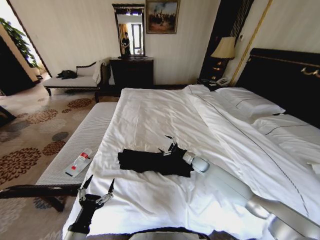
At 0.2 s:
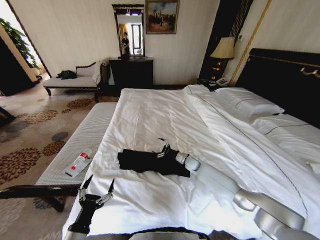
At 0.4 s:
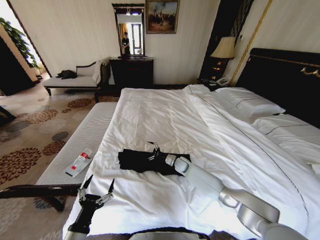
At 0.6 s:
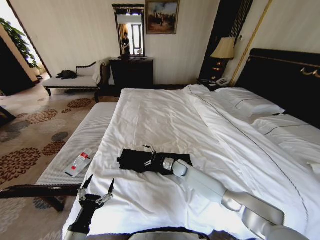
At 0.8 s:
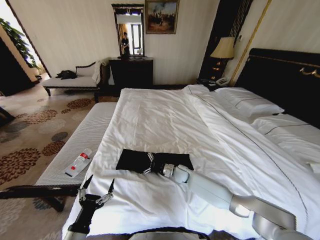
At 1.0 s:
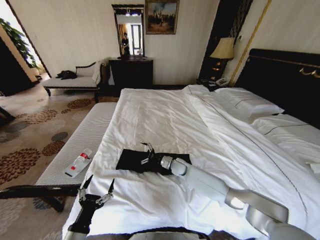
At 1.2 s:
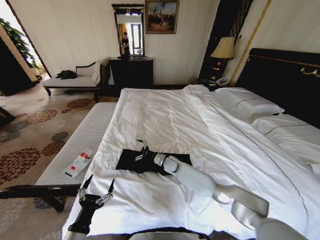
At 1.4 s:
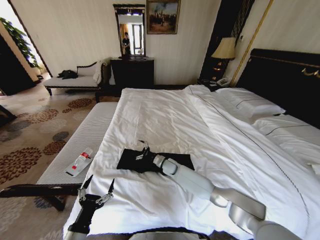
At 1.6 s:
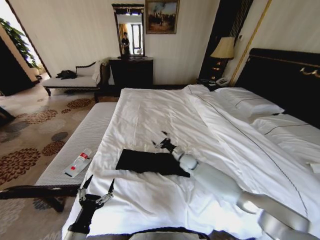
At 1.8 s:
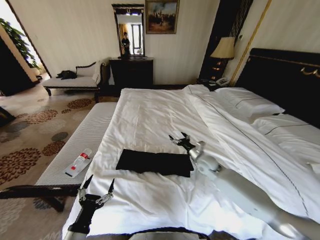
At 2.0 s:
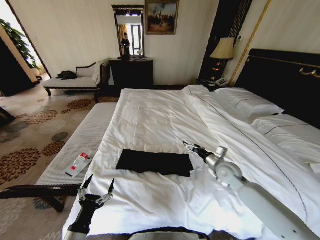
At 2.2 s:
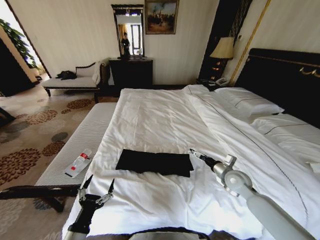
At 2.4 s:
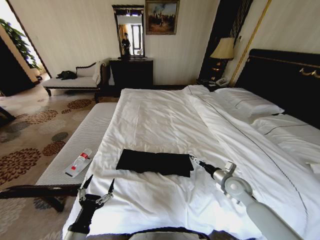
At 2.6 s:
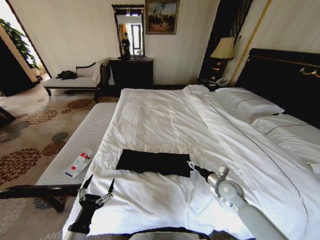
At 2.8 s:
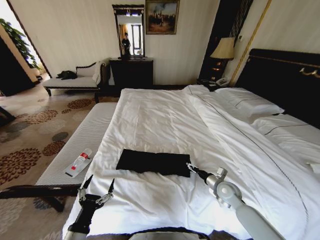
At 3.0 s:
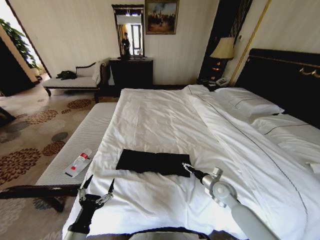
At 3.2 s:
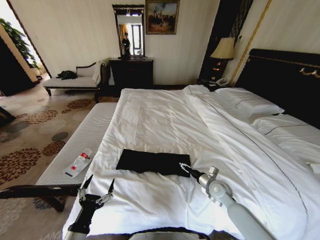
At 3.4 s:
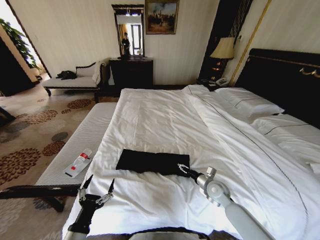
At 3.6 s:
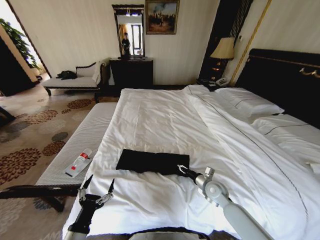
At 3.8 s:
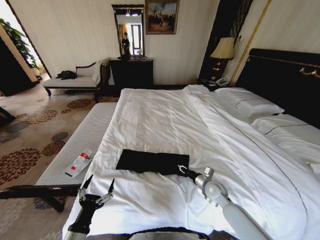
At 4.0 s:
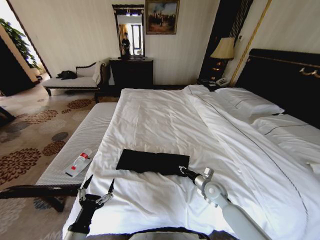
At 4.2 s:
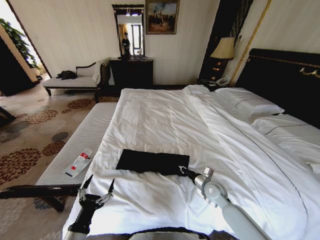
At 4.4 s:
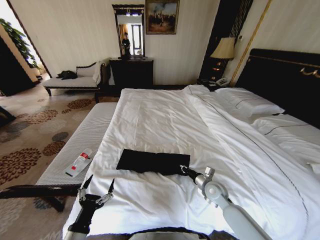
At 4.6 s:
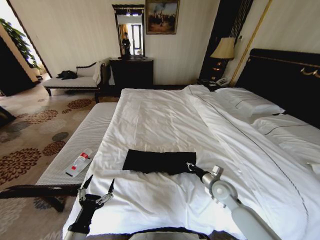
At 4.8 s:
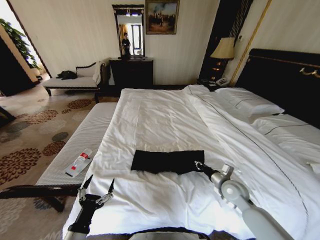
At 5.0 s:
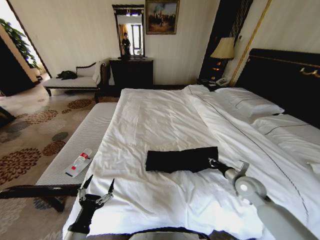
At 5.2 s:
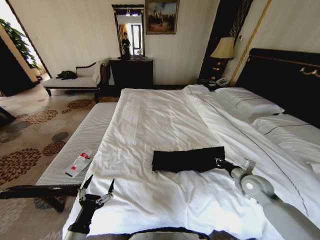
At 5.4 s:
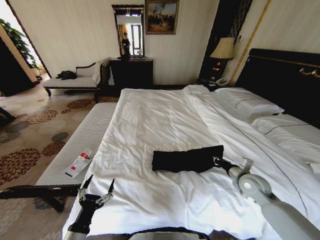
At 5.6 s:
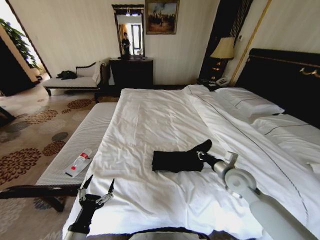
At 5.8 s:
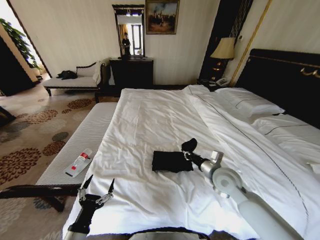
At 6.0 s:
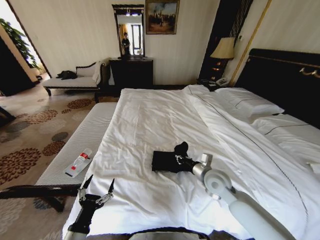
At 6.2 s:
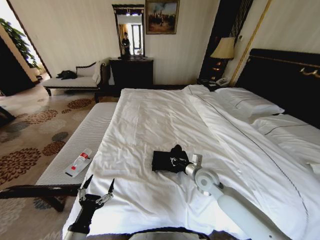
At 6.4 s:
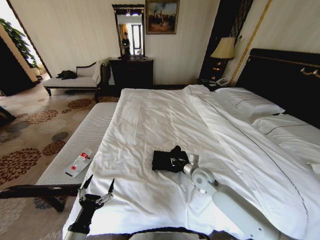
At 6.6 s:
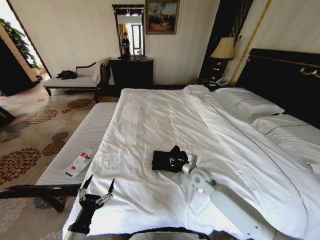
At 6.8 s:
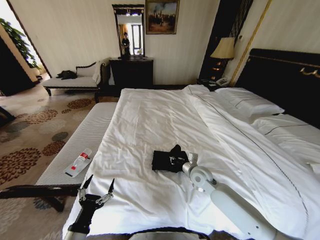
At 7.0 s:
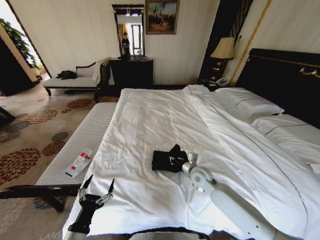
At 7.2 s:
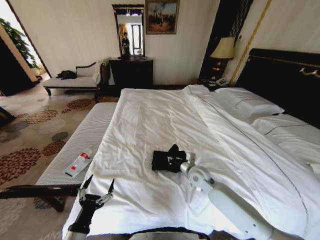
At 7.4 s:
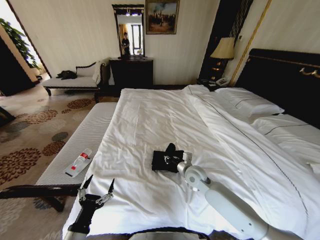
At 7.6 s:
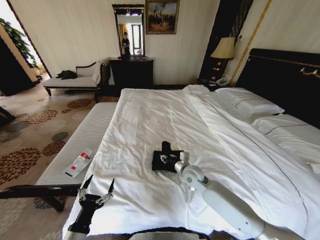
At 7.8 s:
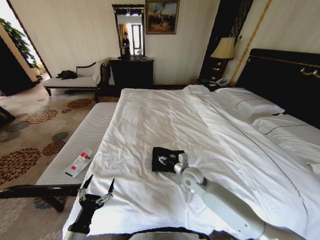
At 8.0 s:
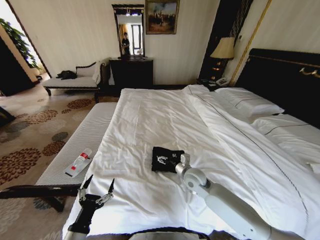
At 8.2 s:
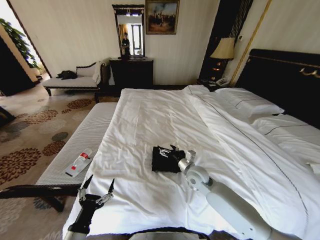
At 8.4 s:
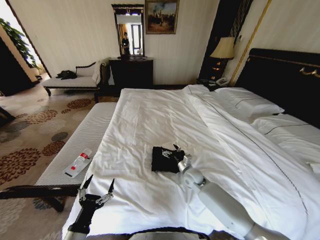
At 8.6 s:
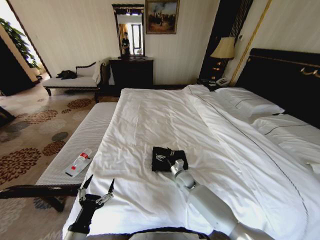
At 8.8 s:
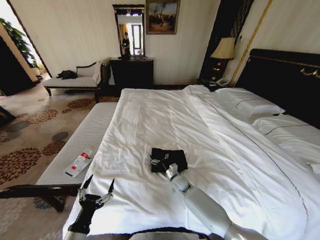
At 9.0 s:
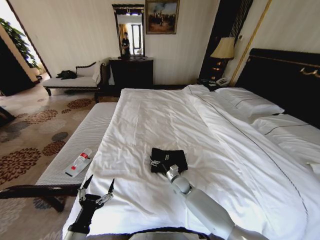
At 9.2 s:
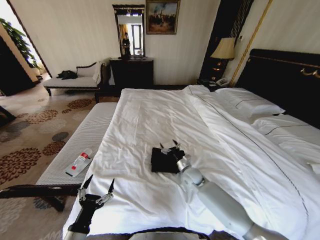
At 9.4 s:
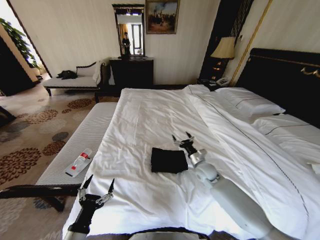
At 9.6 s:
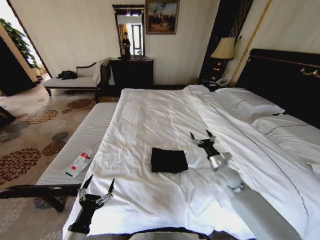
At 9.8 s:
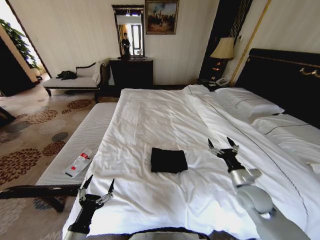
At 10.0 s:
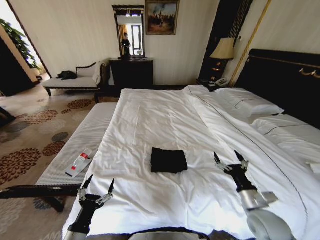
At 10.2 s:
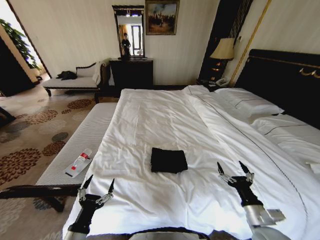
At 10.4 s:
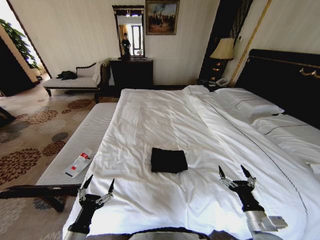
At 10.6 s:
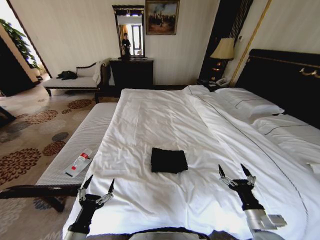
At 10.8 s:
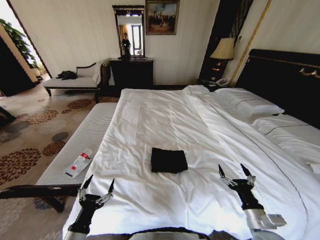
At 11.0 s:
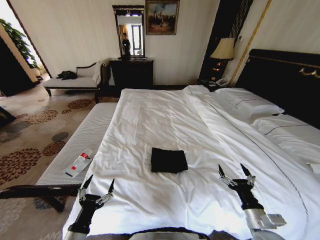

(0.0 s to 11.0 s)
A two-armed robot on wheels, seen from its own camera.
Task of the whole recording: Fold the clothes on the bed.
0.0 s - 1.6 s: The right gripper travels to the left by some 10 cm.
1.6 s - 3.2 s: The right gripper heads backward and to the right, covering approximately 20 cm.
3.2 s - 4.8 s: The right gripper changes place by approximately 5 cm, and closes.
4.8 s - 6.2 s: The right gripper shifts about 10 cm to the left.
6.2 s - 7.8 s: The right gripper travels to the left by approximately 5 cm, and opens up.
7.8 s - 9.4 s: The right gripper goes approximately 10 cm to the right, reaches about 15 cm downward, then returns, and opens up.
9.4 s - 11.0 s: The right gripper shifts approximately 25 cm backward.
